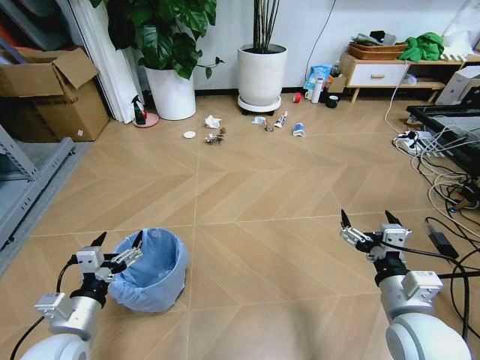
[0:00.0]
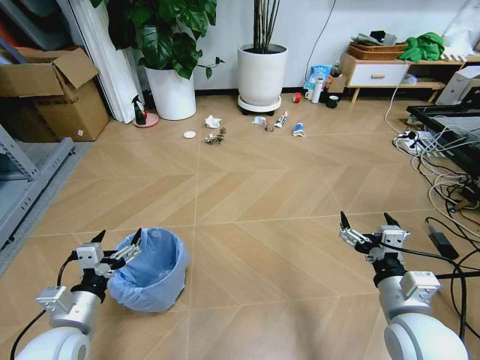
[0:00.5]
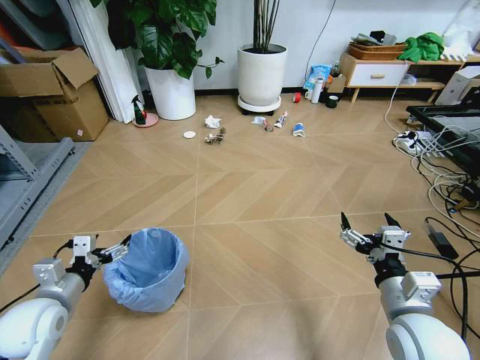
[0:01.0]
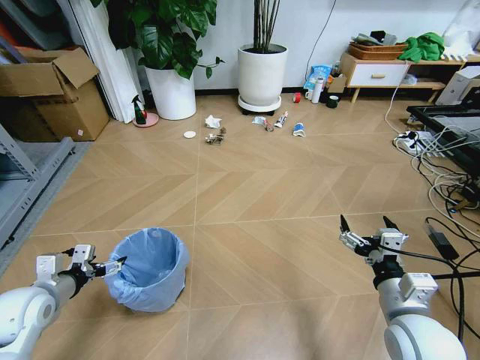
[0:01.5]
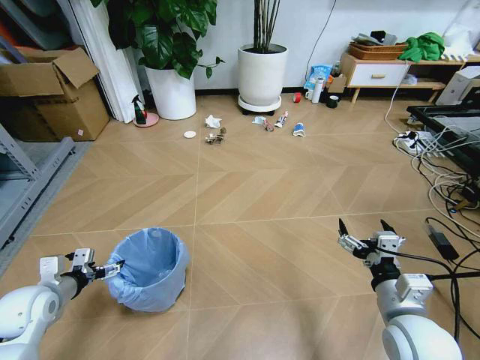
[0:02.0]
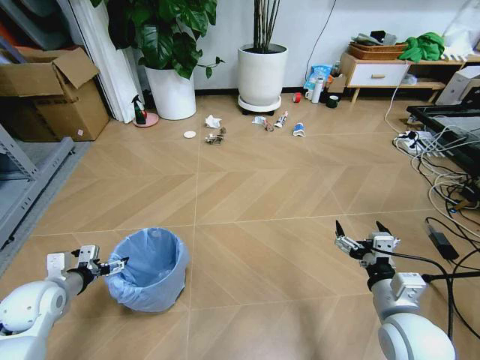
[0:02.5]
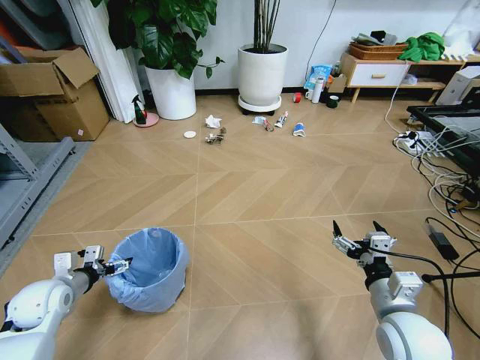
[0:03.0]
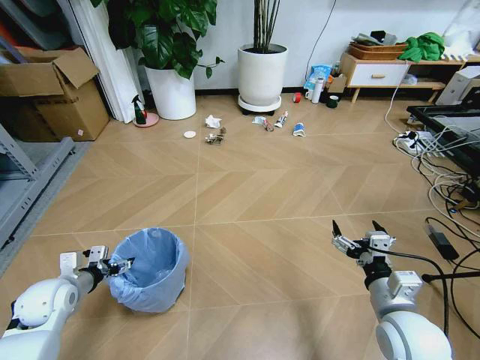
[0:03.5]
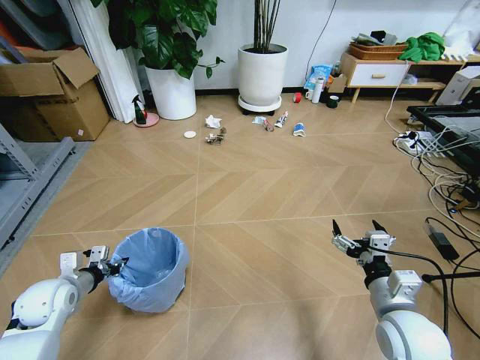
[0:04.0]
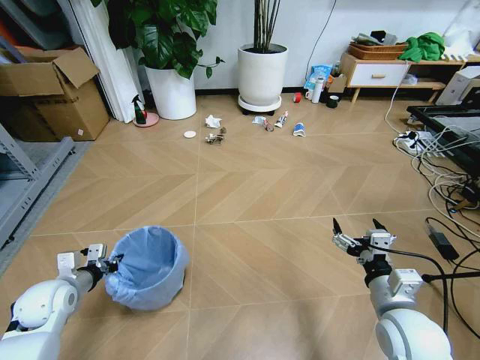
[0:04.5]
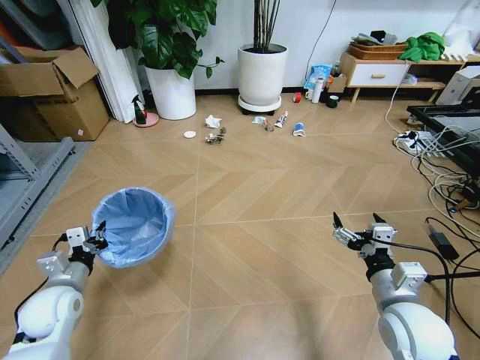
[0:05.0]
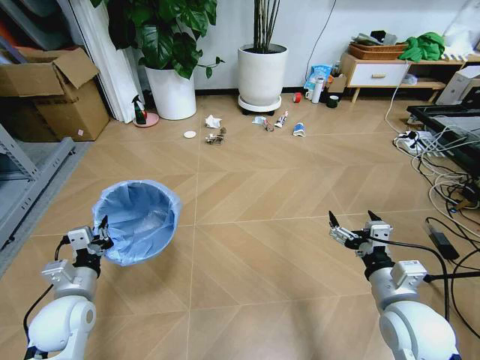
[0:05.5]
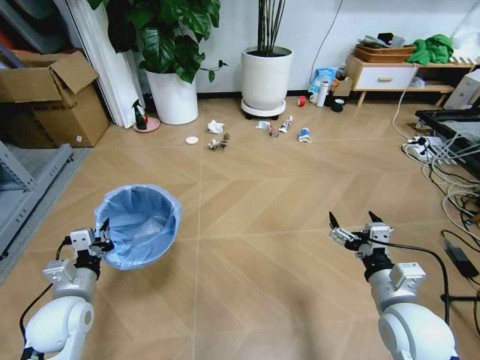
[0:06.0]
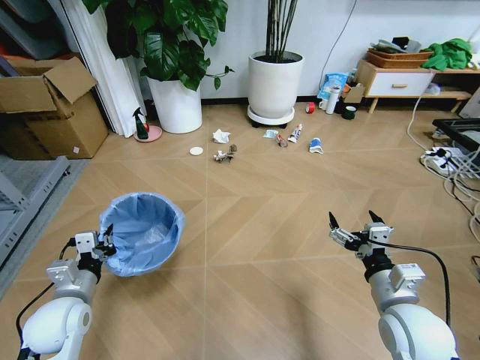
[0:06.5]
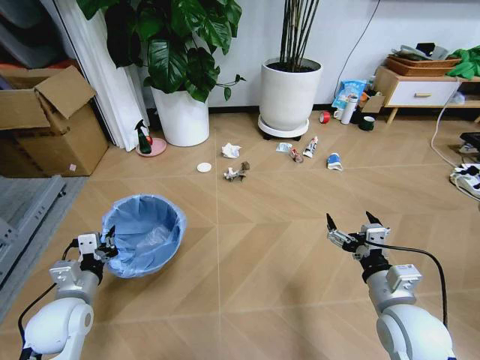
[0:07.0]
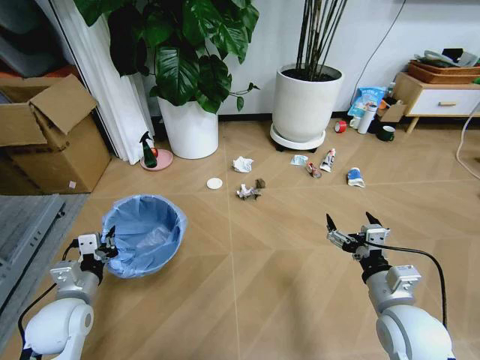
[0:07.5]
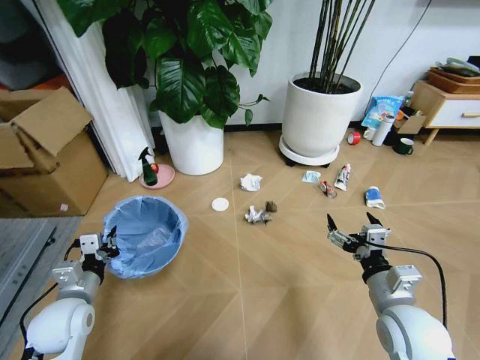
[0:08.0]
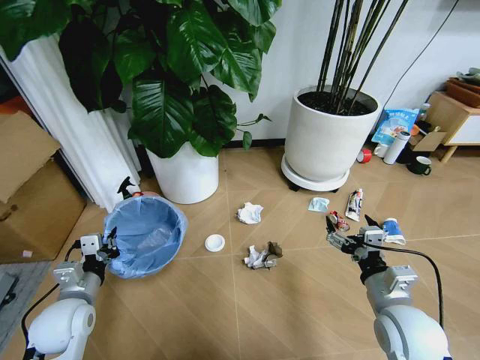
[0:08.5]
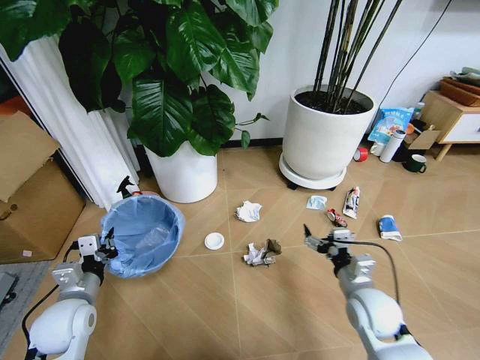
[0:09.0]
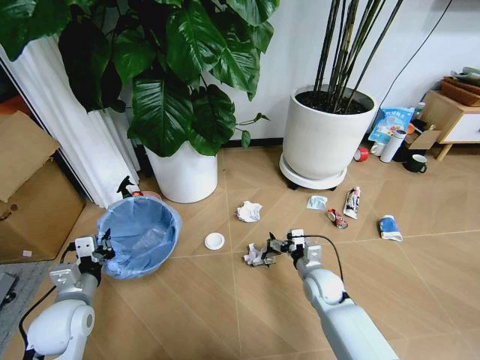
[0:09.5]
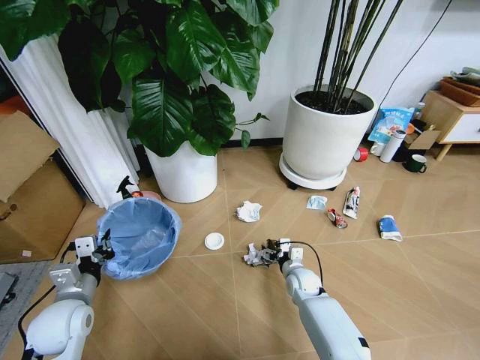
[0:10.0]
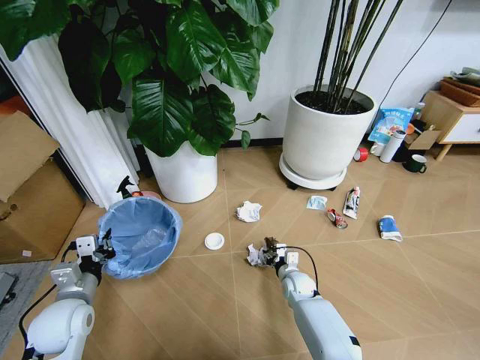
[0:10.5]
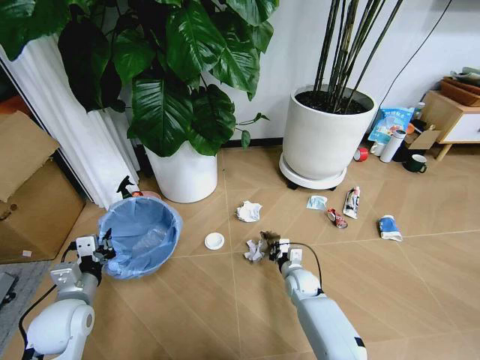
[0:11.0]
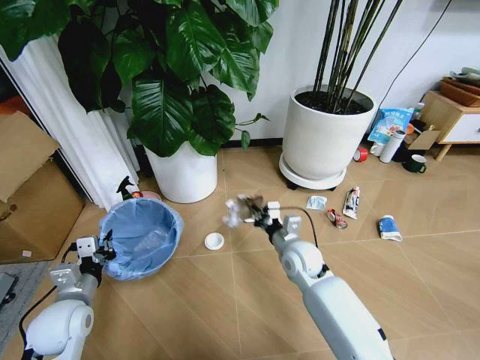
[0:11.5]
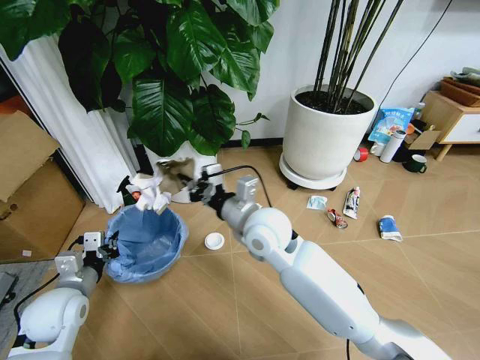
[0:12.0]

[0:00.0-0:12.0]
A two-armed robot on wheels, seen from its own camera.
Task of the whole recording: Pick up the trash bin and place the garbage on the floor into it.
0:02.0 to 0:04.0: The left gripper closes its fingers.
0:04.0 to 0:06.0: The left gripper is displaced to the right by about 5 cm.
0:08.0 to 0:10.0: The right gripper moves downward, forward and to the left, approximately 30 cm.
0:10.0 to 0:12.0: The right gripper shifts about 35 cm upward and to the left, and closes its fingers.

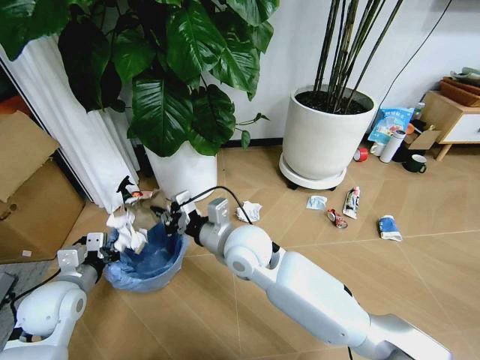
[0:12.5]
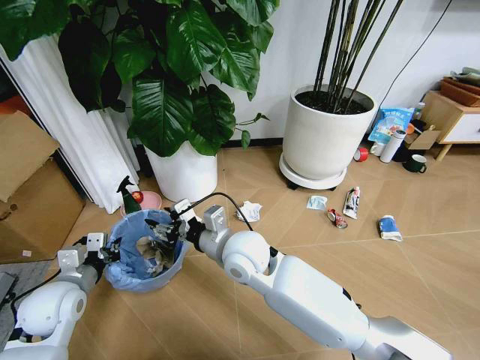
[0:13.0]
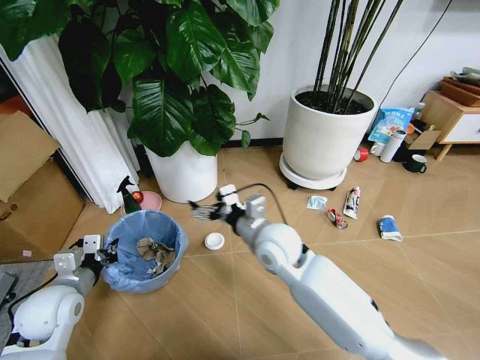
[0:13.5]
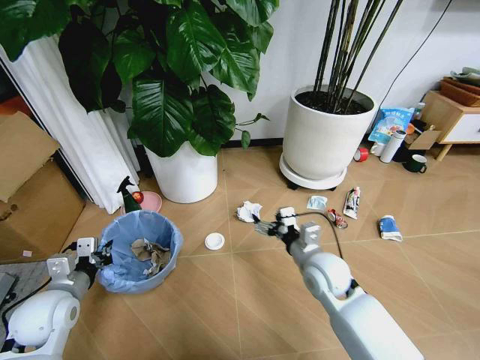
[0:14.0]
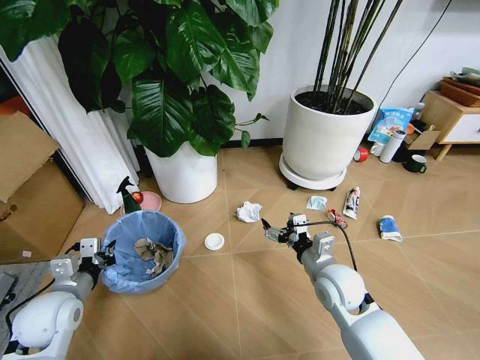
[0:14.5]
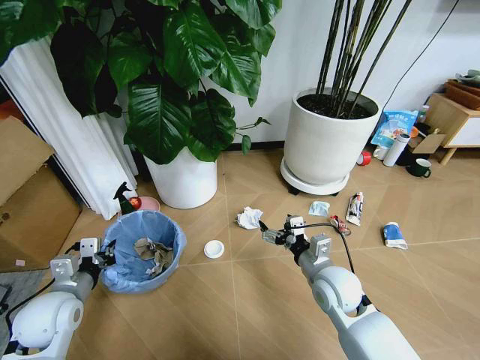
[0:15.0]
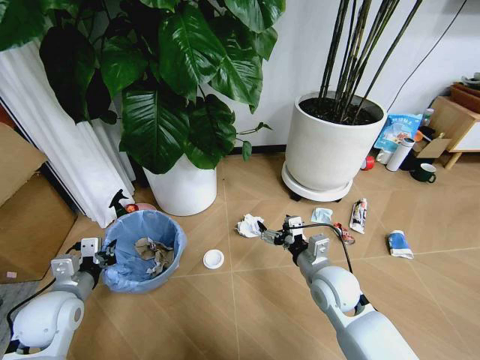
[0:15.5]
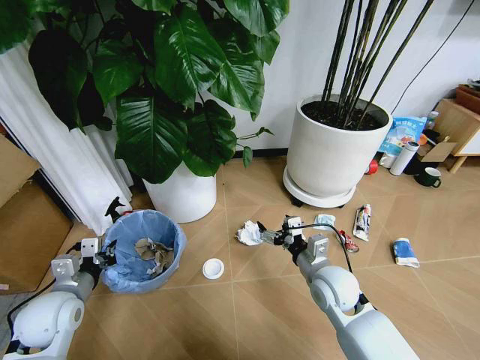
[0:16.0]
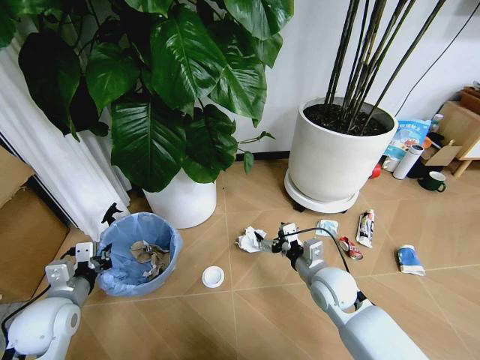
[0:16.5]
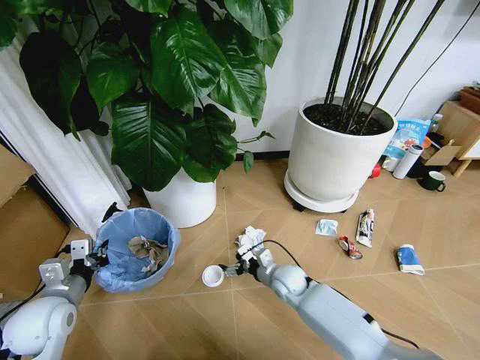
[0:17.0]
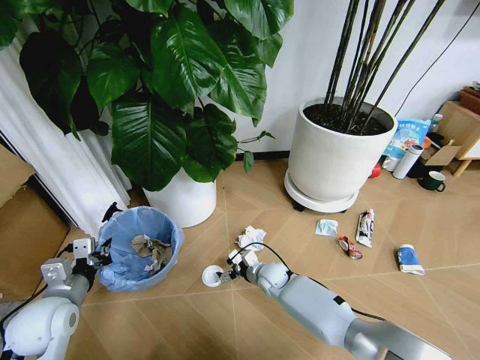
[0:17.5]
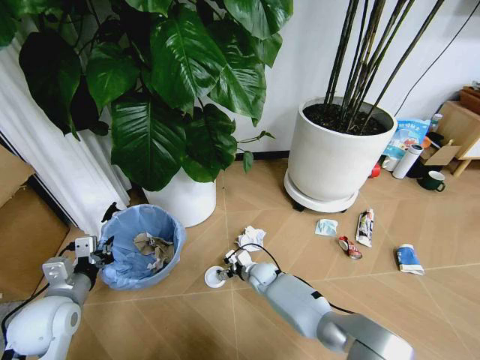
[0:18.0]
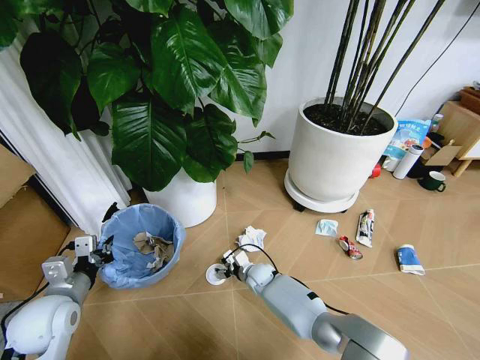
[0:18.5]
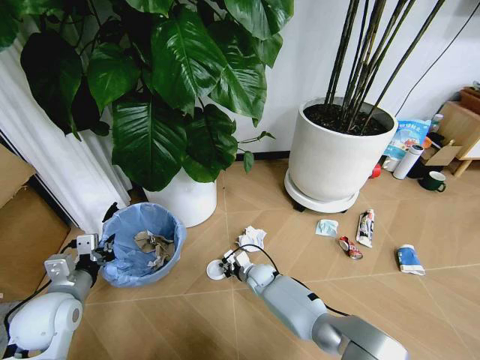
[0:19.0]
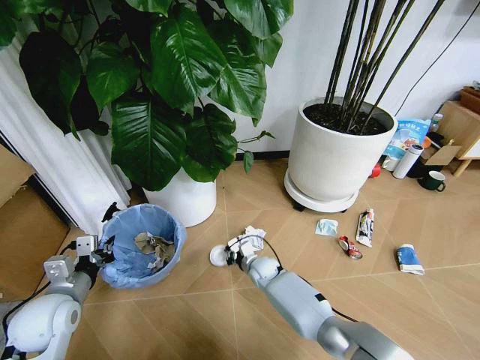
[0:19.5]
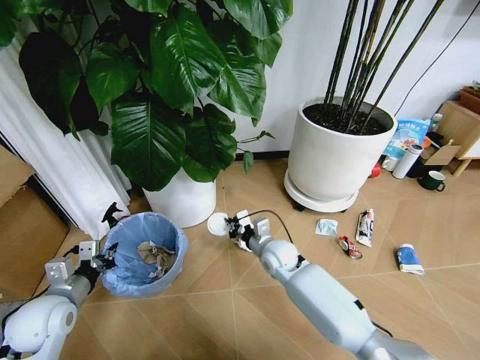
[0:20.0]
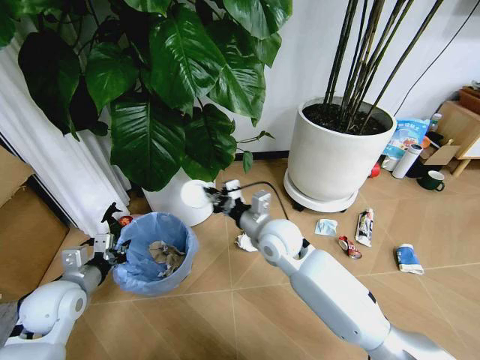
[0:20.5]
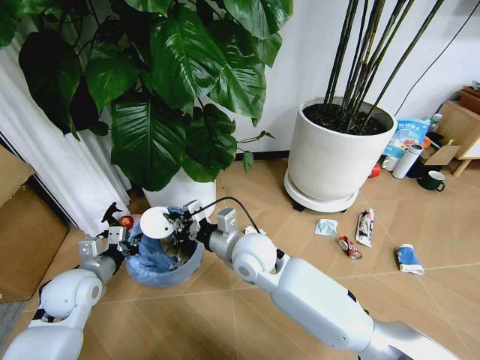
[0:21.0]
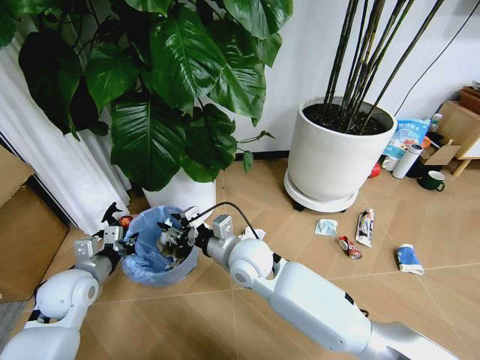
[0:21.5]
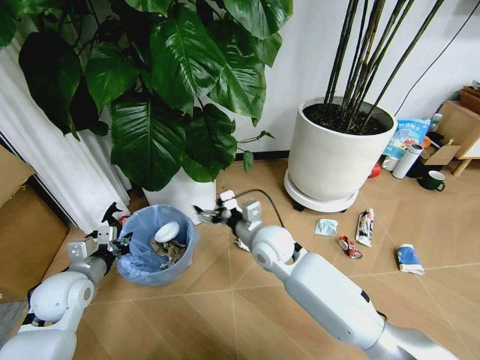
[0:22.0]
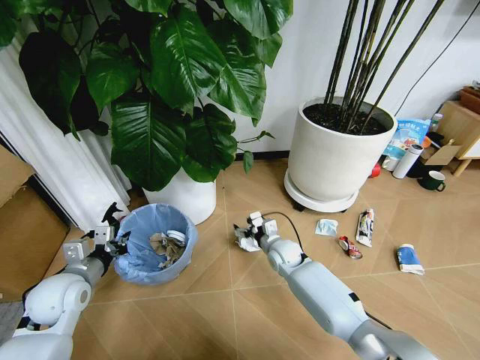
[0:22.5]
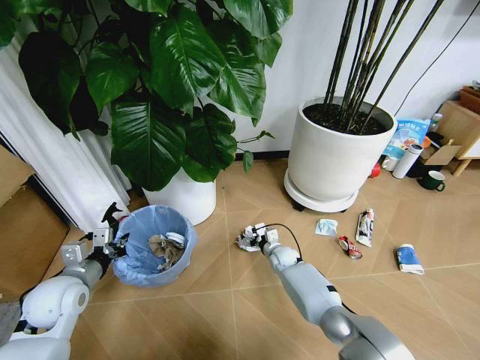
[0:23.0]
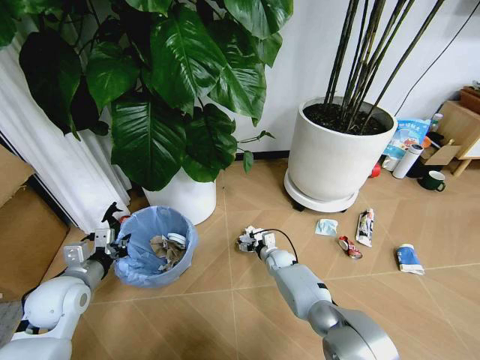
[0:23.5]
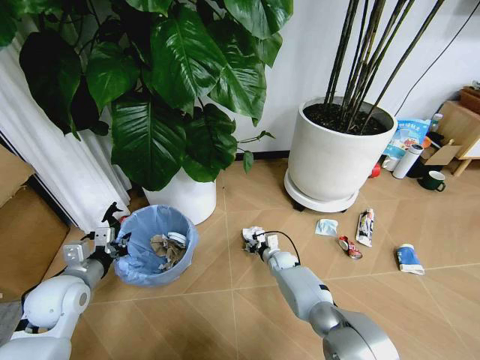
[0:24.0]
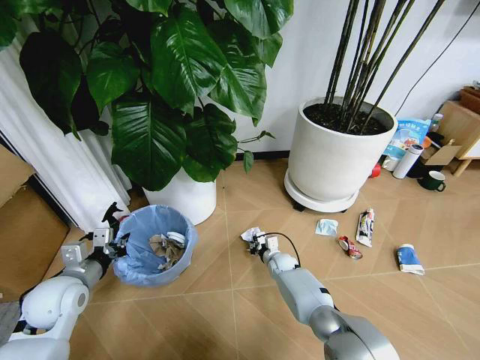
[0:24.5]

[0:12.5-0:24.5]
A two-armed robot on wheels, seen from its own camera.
Task of the whole recording: Pick up the trash bin and place the garbage on the floor into it.
0:12.5 to 0:14.5: The right gripper shifts roughly 20 cm to the right and downward, and opens up.
0:16.5 to 0:18.5: The right gripper moves downward, to the left and forward, some 25 cm.
0:18.5 to 0:20.5: The right gripper heads upward, covering about 30 cm, and closes up.
0:20.5 to 0:22.5: The right gripper heads downward, covering some 20 cm, and opens up.
0:22.5 to 0:24.5: The right gripper goes some 10 cm downward, and closes its fingers.

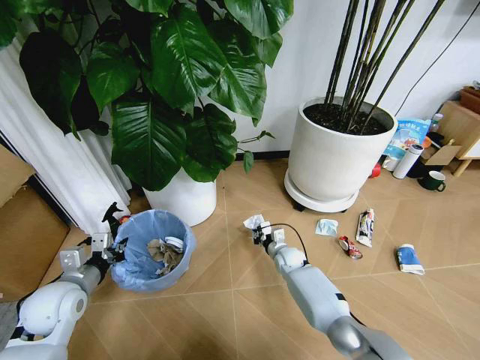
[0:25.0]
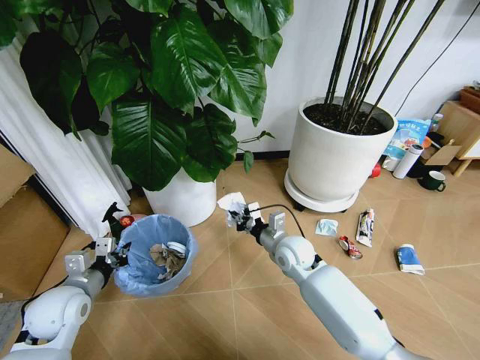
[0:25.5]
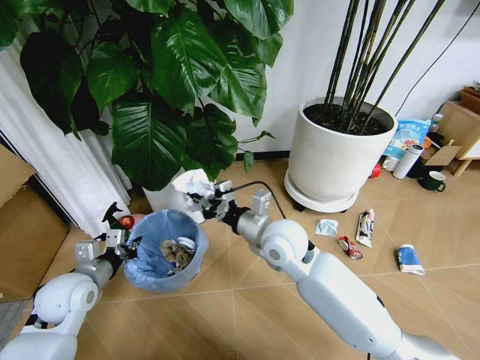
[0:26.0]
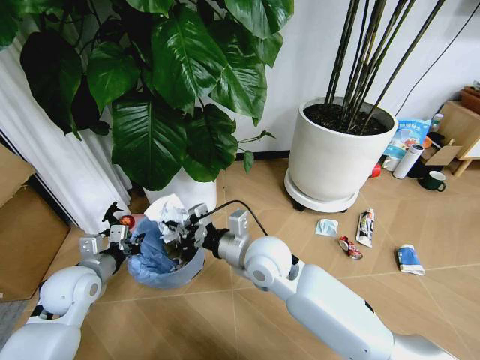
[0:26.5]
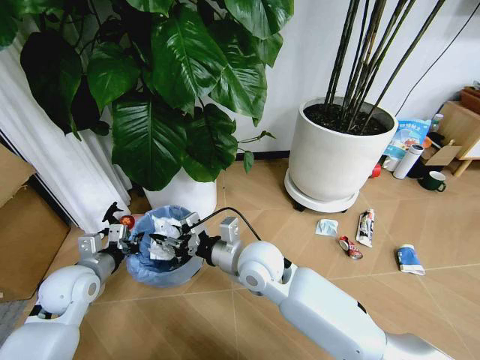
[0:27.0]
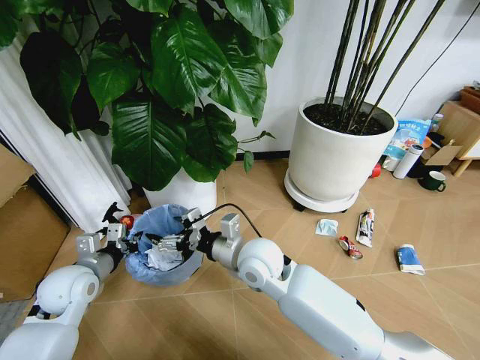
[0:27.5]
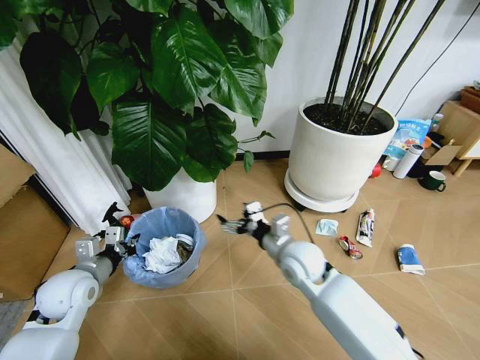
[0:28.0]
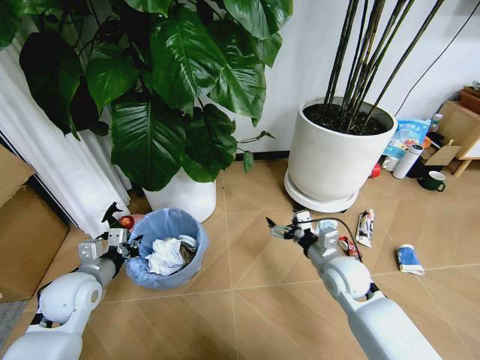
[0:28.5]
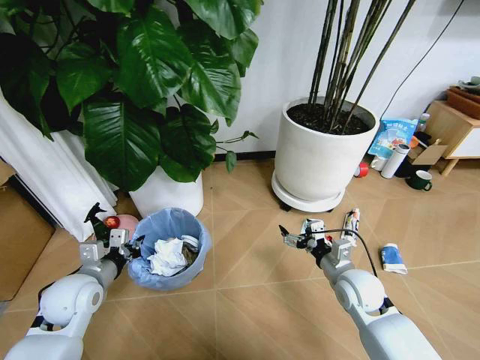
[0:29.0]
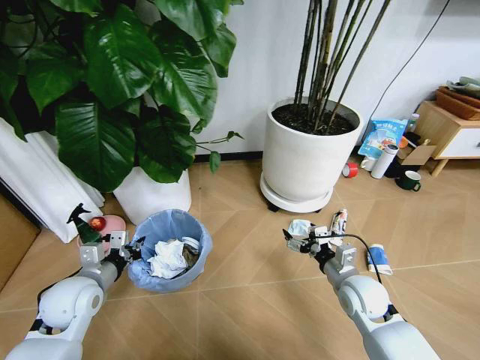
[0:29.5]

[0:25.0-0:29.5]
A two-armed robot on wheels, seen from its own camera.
Task of the whole recording: Pick up the trash bin and place the garbage on the floor into it.
0:25.0 to 0:27.0: The right gripper heads upward, backward and to the left, covering roughly 30 cm, and opens.
0:27.0 to 0:29.5: The right gripper shifts roughly 25 cm to the right and downward, and opens up.
